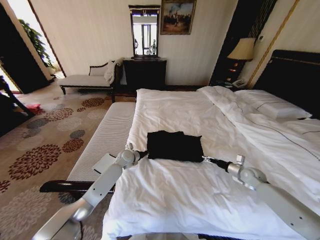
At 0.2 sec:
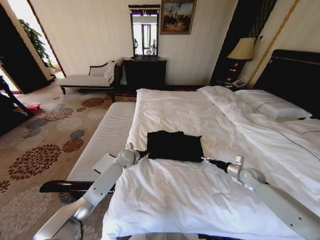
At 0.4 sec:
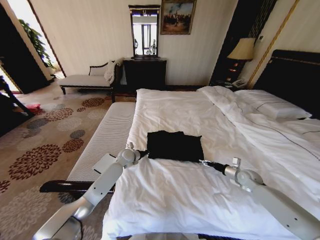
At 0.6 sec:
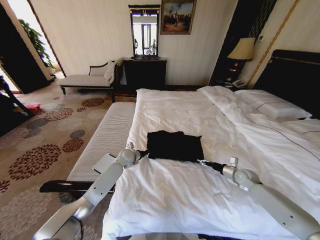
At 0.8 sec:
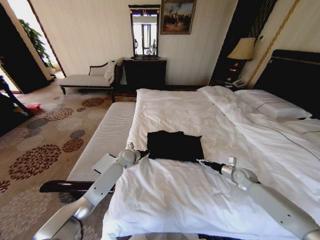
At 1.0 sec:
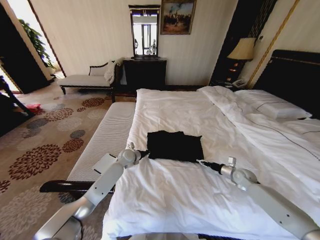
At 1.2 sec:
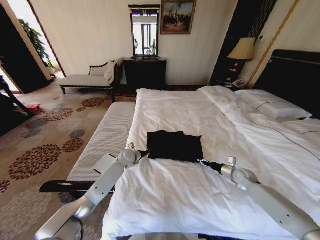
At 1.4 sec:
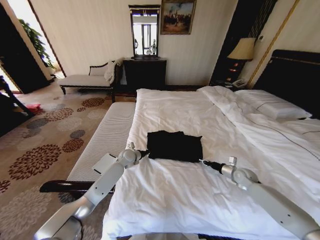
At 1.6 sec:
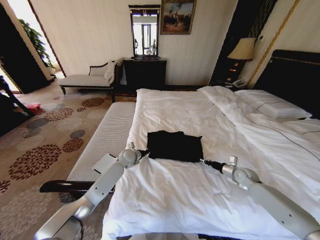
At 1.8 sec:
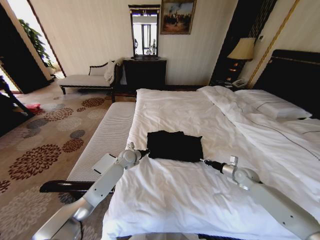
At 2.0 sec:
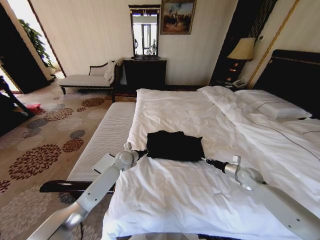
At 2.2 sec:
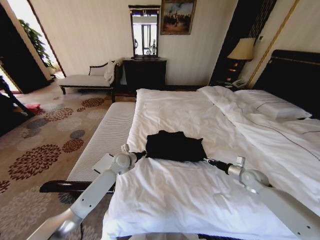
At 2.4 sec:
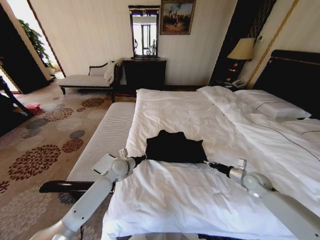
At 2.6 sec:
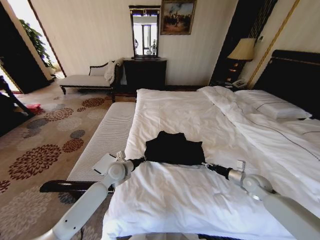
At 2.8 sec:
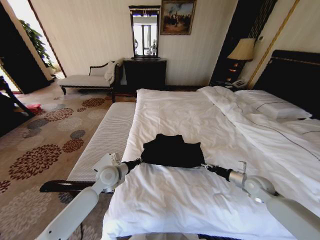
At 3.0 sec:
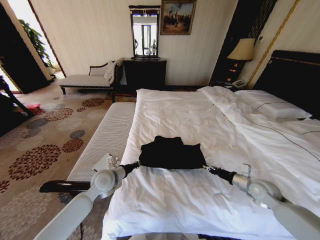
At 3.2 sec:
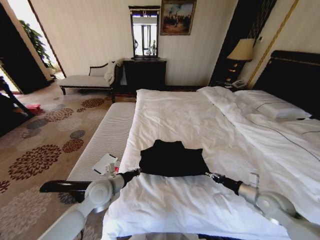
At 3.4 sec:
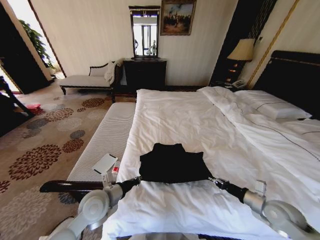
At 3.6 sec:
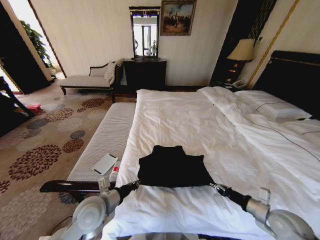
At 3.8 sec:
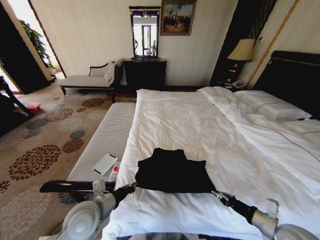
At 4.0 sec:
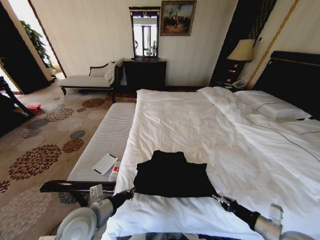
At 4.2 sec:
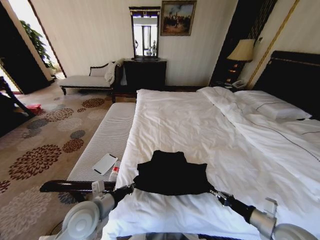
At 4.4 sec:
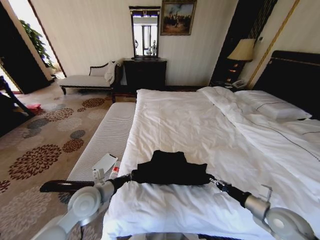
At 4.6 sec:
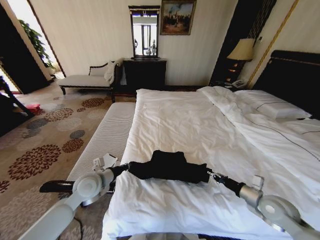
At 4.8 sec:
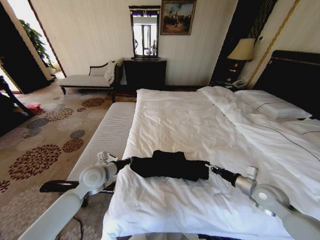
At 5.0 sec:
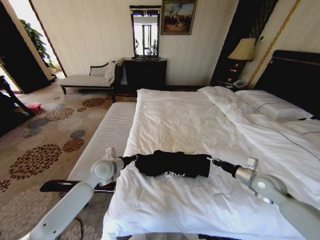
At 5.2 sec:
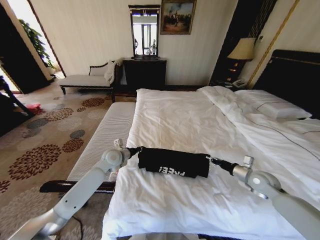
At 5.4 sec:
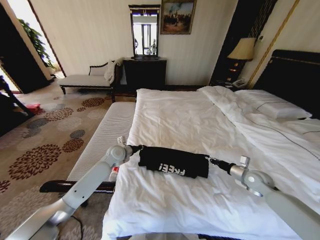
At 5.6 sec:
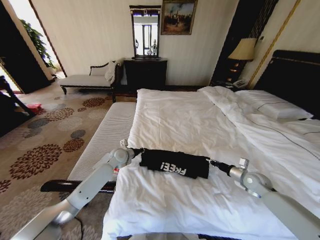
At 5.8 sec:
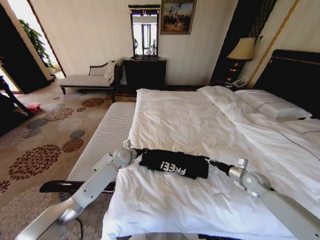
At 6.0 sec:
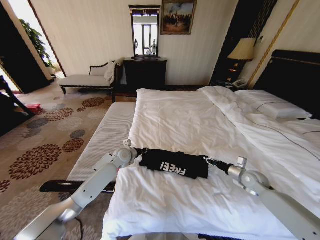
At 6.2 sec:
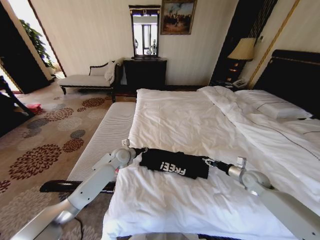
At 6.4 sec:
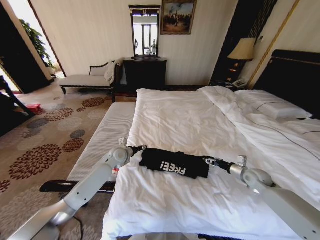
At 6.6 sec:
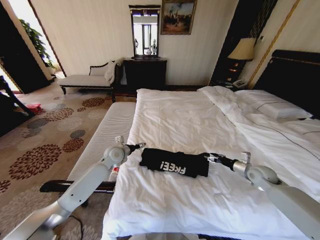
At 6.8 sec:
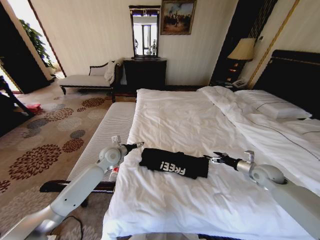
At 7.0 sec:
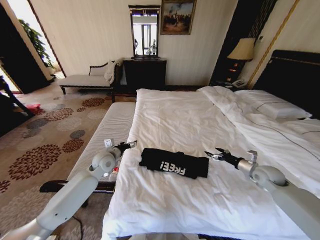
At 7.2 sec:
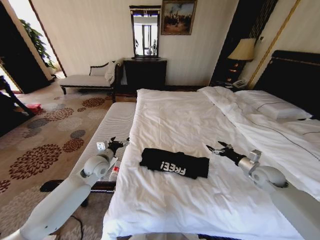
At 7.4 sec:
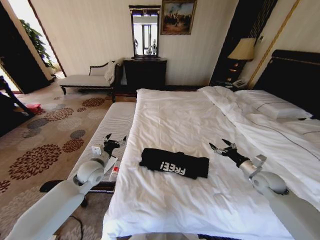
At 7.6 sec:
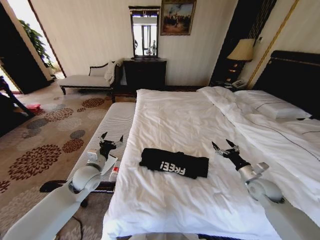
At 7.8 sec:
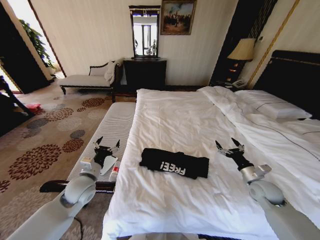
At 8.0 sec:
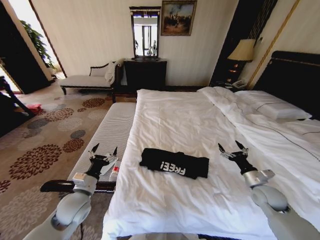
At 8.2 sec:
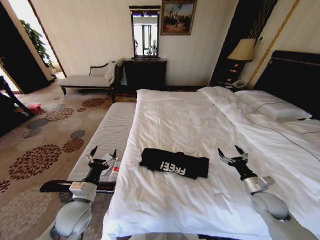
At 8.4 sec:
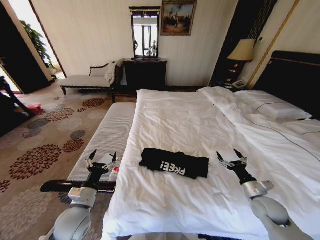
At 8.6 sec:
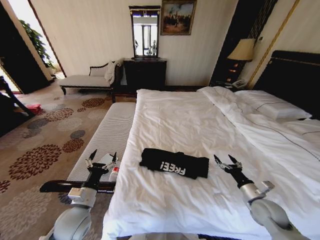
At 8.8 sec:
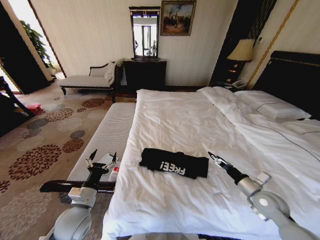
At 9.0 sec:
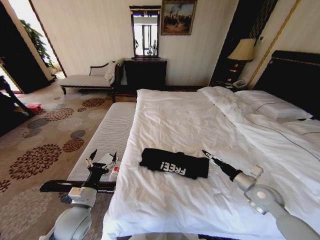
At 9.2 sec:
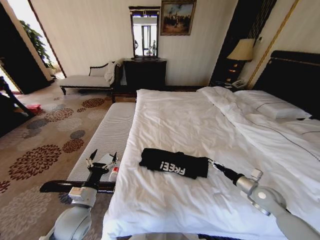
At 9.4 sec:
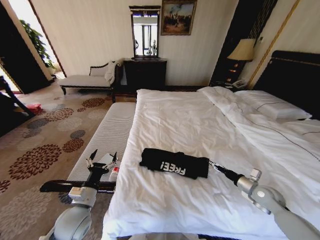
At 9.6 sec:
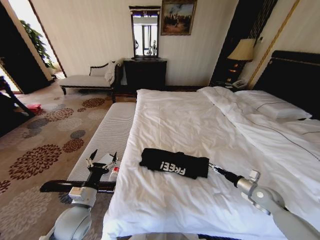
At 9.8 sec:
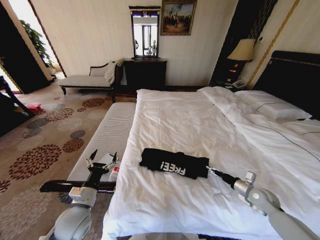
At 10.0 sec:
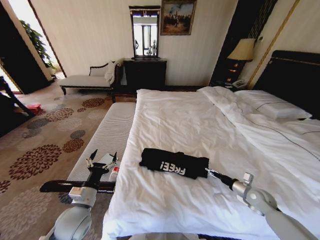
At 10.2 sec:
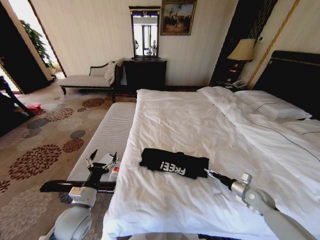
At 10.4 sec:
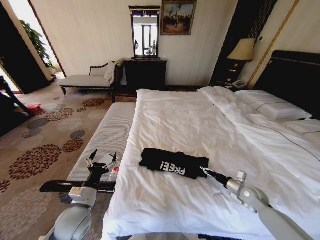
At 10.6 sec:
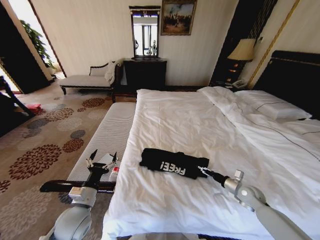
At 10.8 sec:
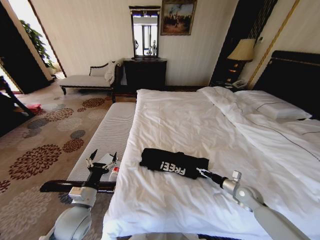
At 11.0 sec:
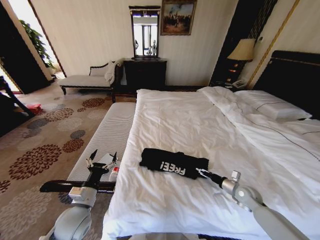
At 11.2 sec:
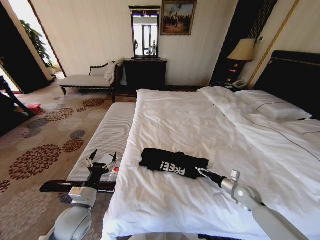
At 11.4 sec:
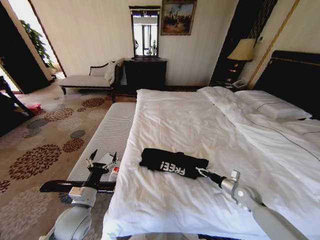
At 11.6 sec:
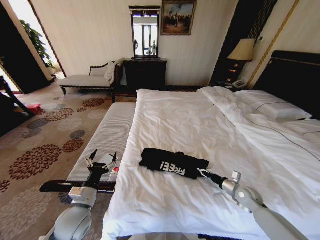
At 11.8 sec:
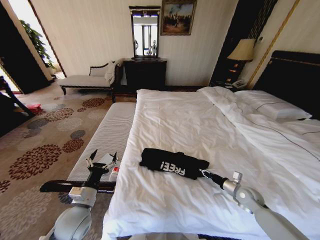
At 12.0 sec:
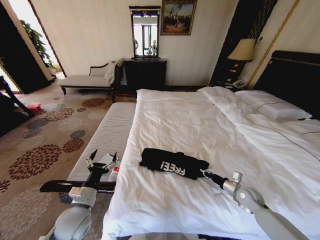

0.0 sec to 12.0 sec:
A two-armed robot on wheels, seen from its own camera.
Task of the whole recording: Fold the clothes on the bed.
0.0 sec to 1.6 sec: The right gripper closes up.
1.6 sec to 3.0 sec: The right gripper shifts about 10 cm backward and upward. The left gripper travels backward and upward by roughly 15 cm.
3.0 sec to 4.4 sec: Both grippers move backward, approximately 10 cm.
4.4 sec to 6.0 sec: The grippers both shift forward by roughly 20 cm.
6.0 sec to 7.6 sec: The left gripper heads backward and to the left, covering approximately 15 cm, and opens up, while the right gripper ends up approximately 5 cm from where it was, and opens.
7.6 sec to 9.0 sec: The left gripper travels backward by roughly 15 cm.
9.0 sec to 10.4 sec: The right gripper shifts about 10 cm downward.
10.4 sec to 12.0 sec: The right gripper closes its fingers.

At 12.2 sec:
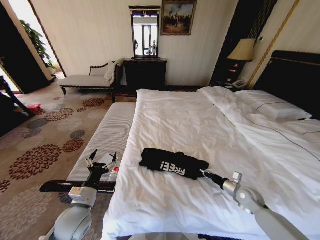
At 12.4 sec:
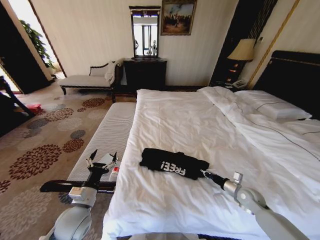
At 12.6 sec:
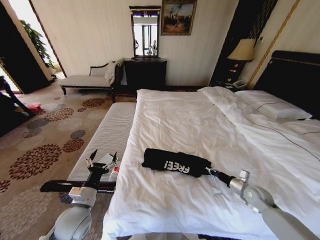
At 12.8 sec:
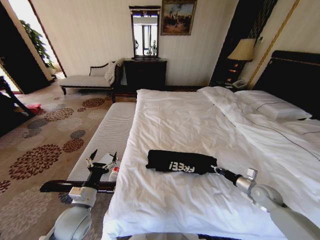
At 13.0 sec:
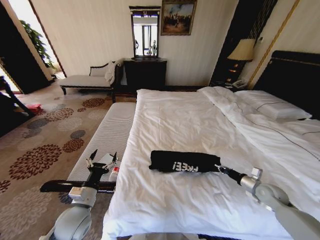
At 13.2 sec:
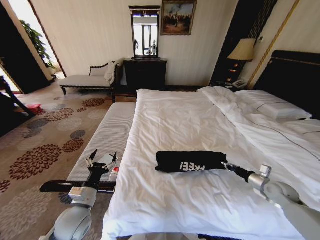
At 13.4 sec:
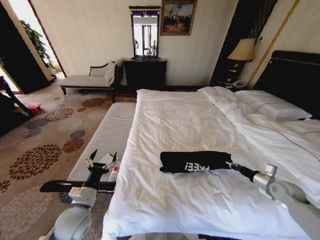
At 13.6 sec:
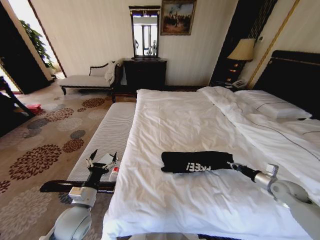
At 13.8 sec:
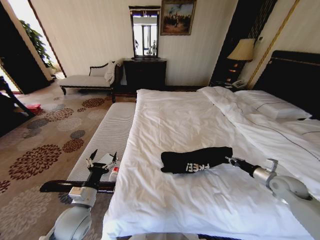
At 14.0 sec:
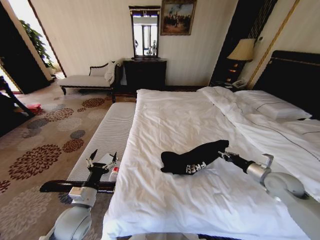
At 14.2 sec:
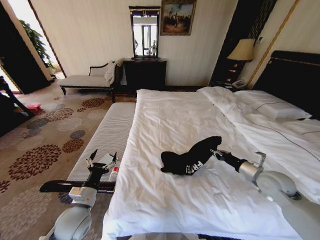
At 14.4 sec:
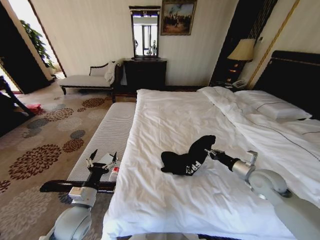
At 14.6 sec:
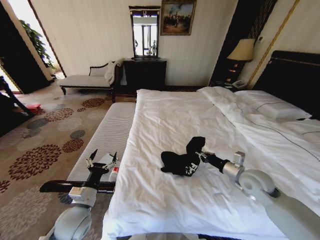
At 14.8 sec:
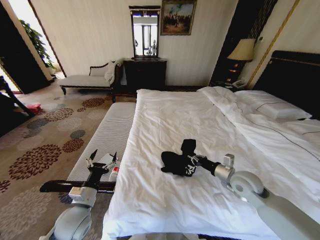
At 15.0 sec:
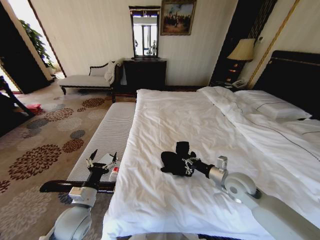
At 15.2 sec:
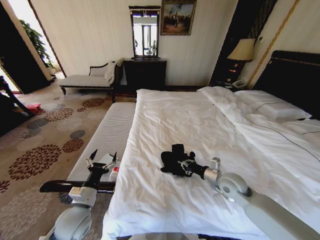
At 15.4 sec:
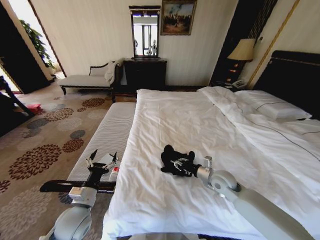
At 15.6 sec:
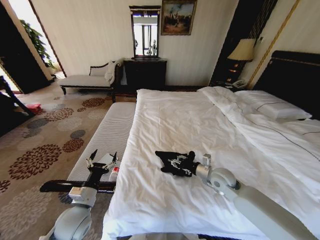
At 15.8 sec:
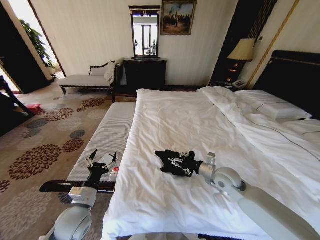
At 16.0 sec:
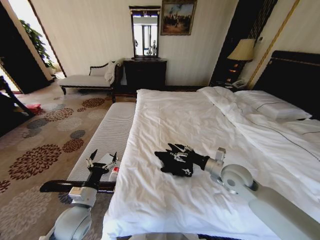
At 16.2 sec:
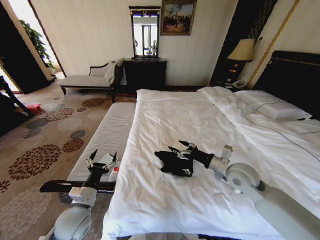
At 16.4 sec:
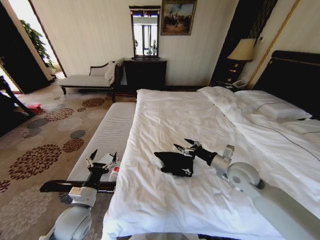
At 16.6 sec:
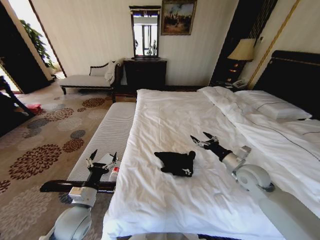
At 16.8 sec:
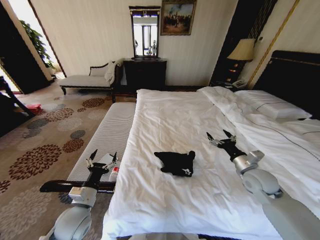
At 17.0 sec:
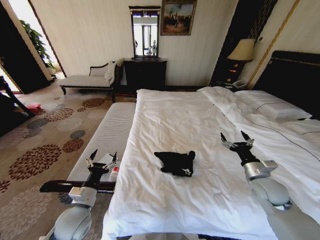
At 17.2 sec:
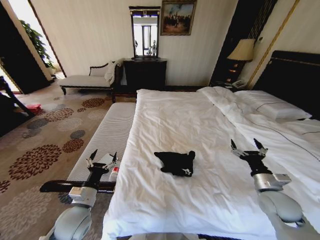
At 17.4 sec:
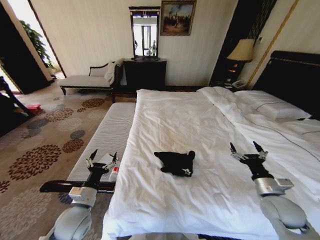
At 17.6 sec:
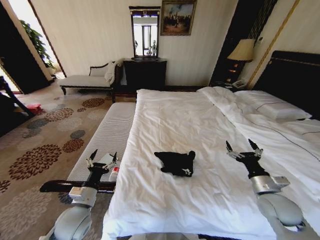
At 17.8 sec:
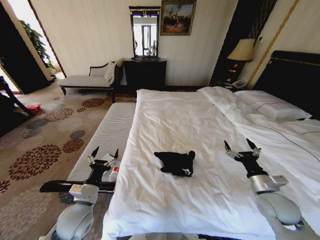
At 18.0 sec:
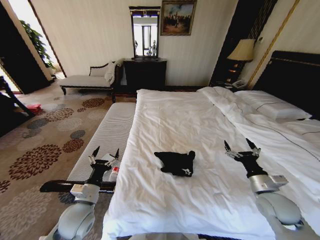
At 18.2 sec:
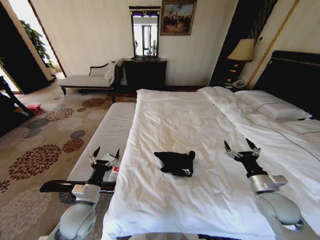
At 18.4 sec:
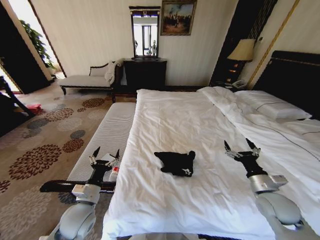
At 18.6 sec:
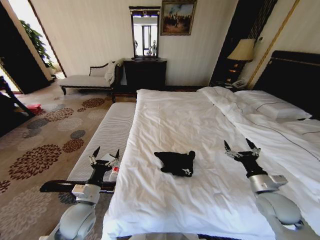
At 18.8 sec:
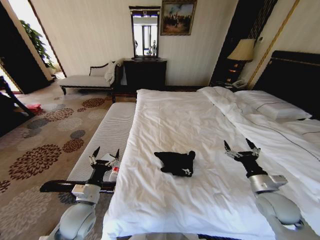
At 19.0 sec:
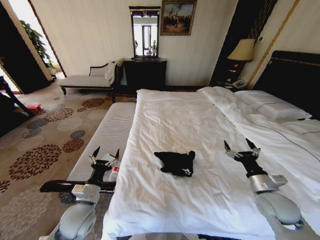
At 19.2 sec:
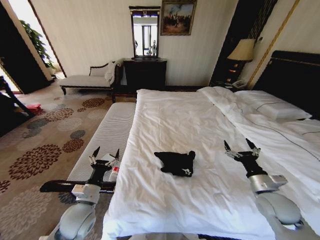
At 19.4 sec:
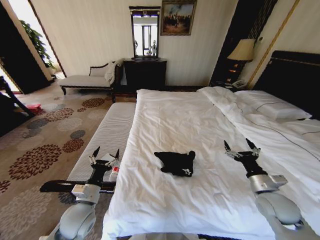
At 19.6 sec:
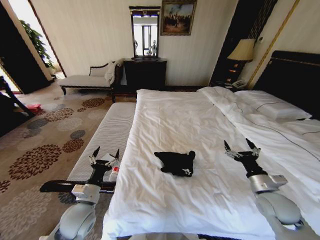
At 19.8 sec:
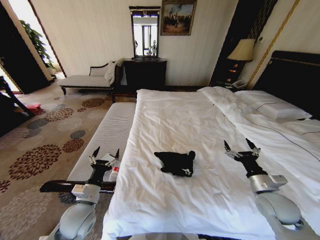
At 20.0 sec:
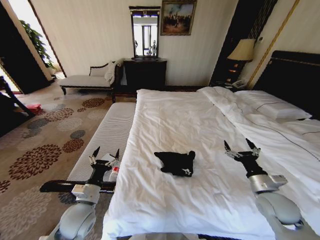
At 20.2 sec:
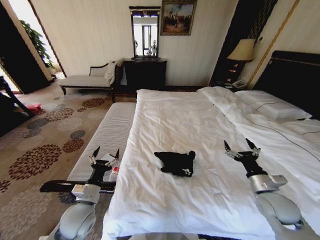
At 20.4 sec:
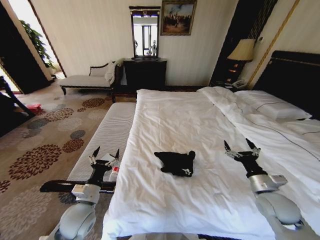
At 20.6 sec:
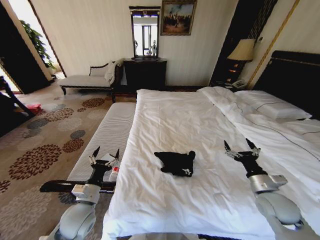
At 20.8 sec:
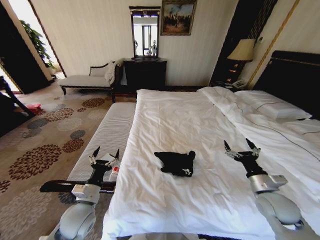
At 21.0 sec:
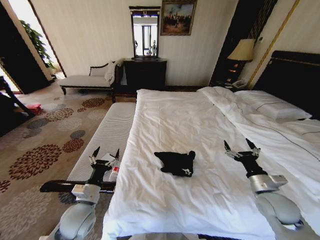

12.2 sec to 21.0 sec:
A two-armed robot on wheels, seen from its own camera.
Task of the whole recording: Fold the clothes on the bed.
12.2 sec to 13.6 sec: The right gripper travels to the right and upward by some 15 cm.
13.6 sec to 15.2 sec: The right gripper is displaced to the left by some 25 cm.
15.2 sec to 16.6 sec: The right gripper goes approximately 5 cm to the right and upward, and opens up.
16.6 sec to 18.0 sec: The right gripper moves backward and to the right, approximately 10 cm.
18.0 sec to 21.0 sec: Both grippers stay put.
